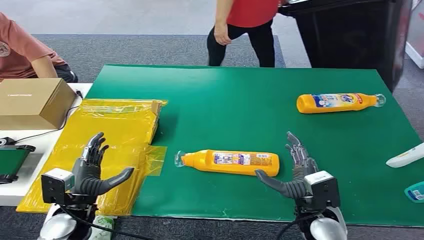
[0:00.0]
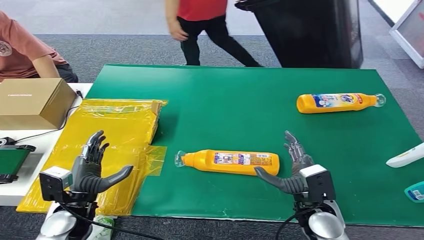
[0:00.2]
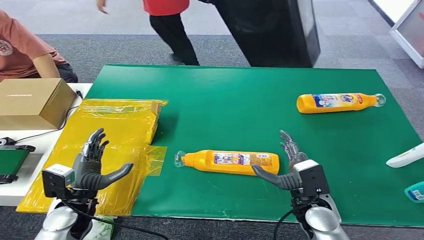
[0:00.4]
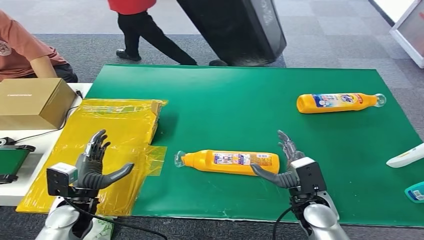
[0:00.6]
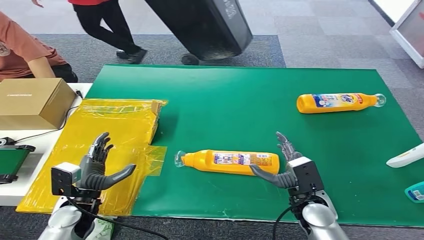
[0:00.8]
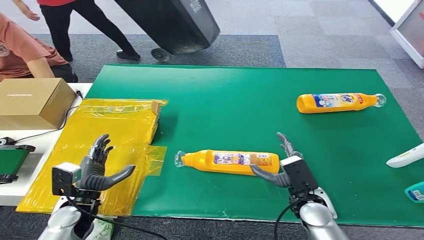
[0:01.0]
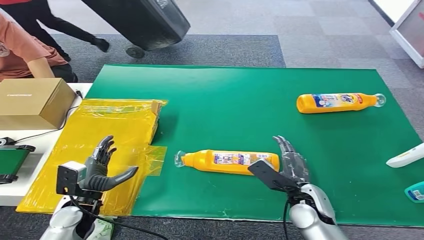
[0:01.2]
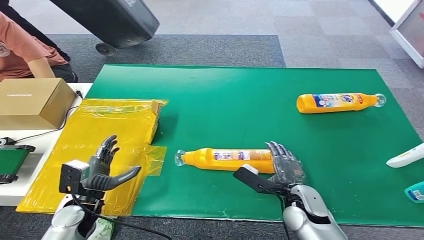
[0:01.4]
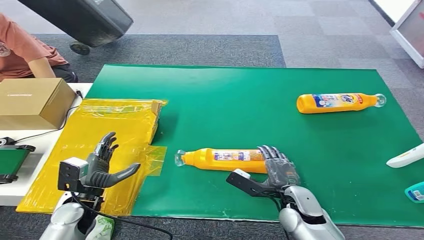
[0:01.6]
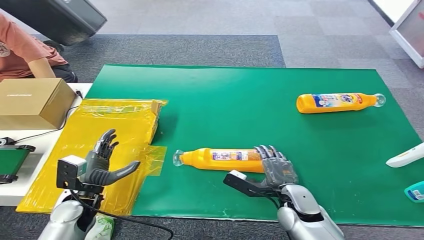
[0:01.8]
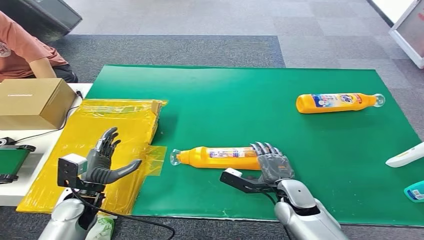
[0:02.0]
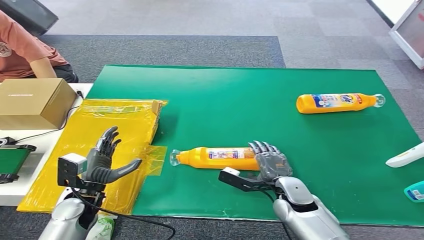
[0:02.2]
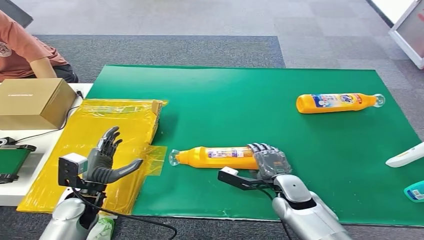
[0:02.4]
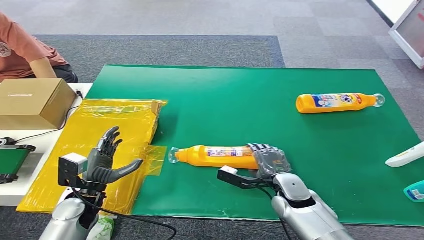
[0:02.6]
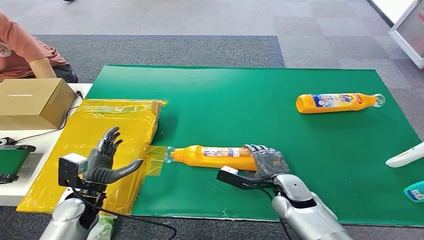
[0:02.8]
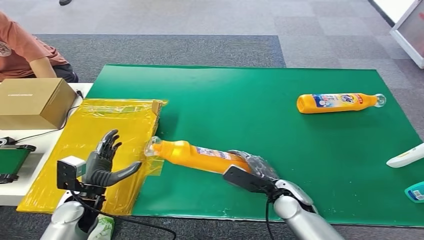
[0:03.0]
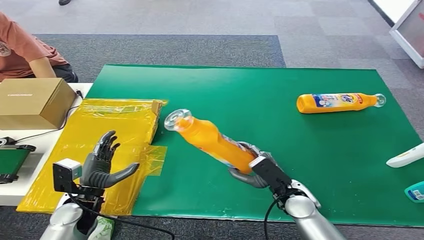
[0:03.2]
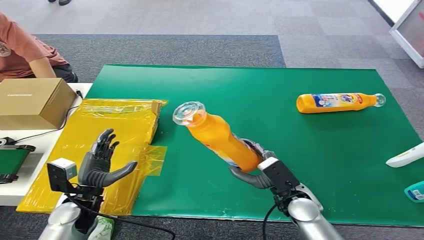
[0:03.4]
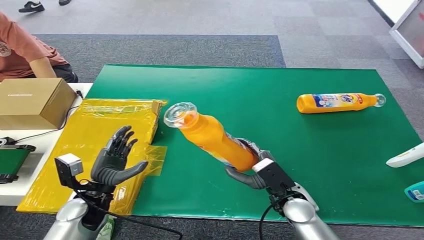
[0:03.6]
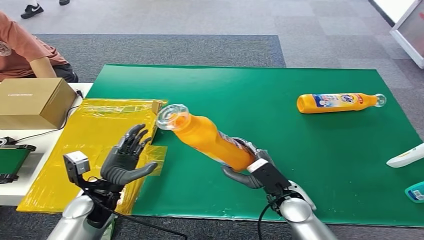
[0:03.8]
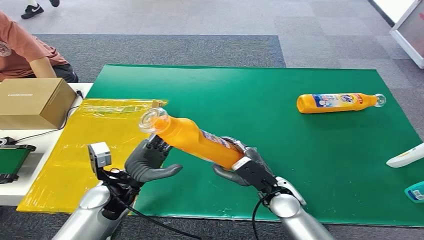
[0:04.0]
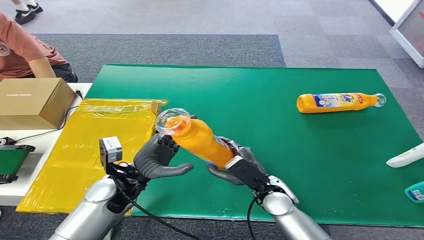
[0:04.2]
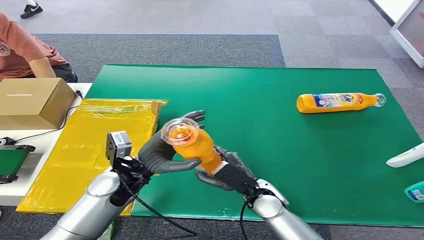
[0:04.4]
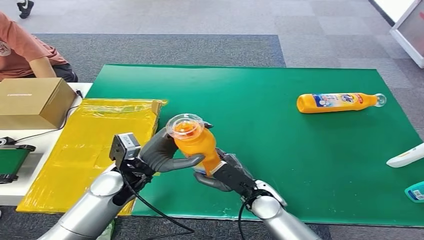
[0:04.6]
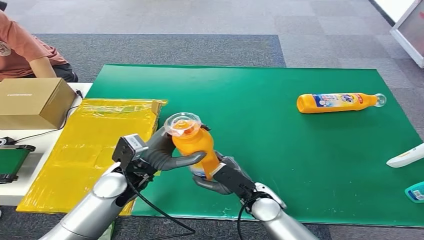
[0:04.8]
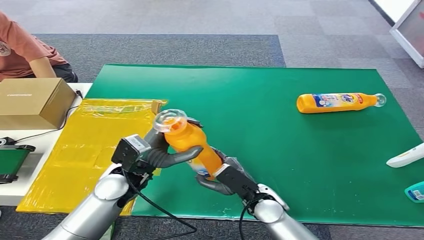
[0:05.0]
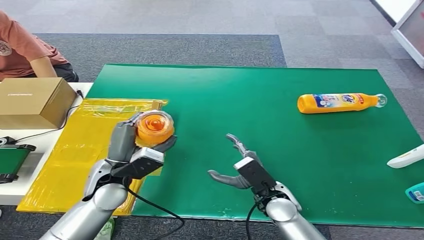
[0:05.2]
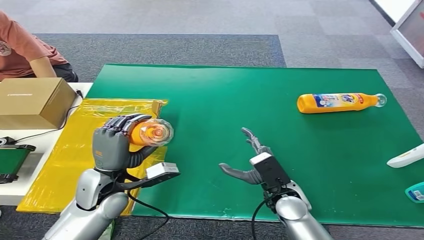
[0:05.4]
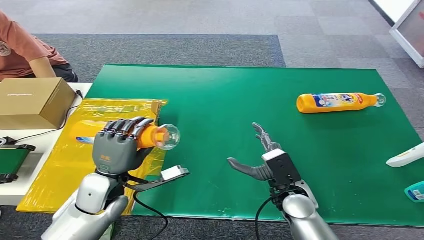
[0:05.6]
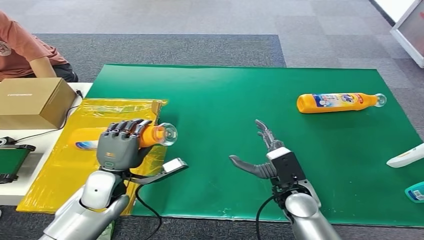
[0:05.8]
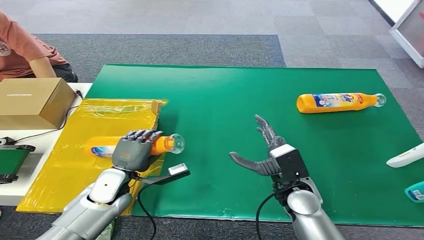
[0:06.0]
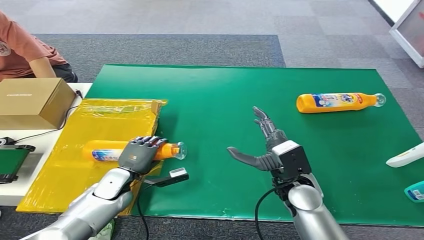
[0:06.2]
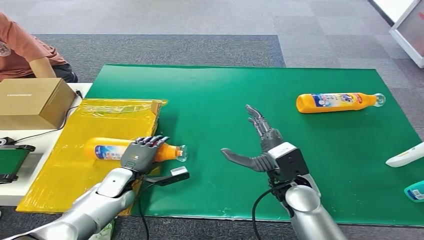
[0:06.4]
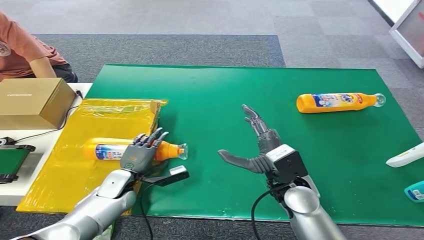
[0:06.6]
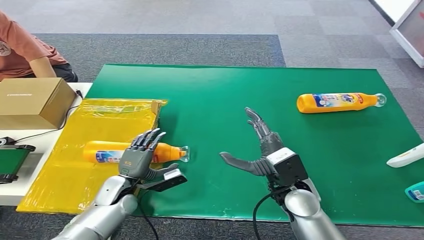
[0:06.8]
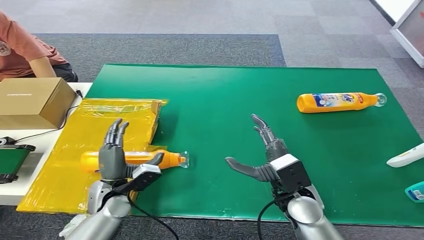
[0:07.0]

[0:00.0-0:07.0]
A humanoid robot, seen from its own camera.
Step, 0.0 to 3.6 s: Pick up the bottle from the table.
Step, 3.8 to 7.0 s: Turn the bottle to the front side.
2.8 to 4.2 s: The left hand travels to the right and upward by roughly 10 cm.
5.6 to 7.0 s: The left hand heads downward, covering some 10 cm.

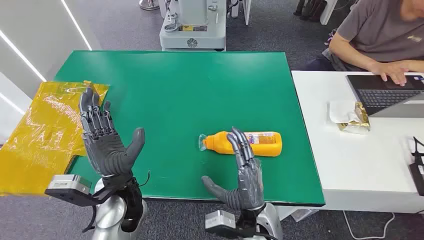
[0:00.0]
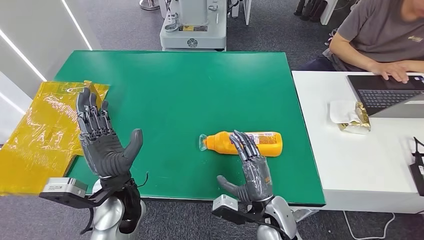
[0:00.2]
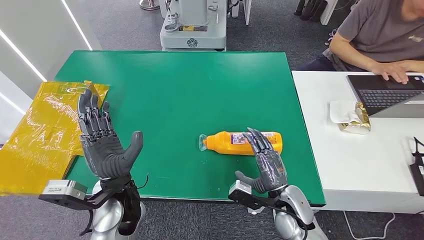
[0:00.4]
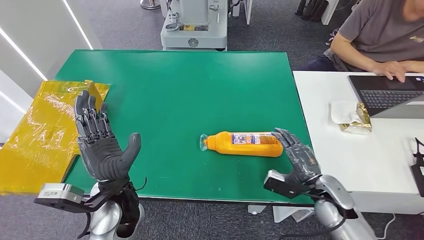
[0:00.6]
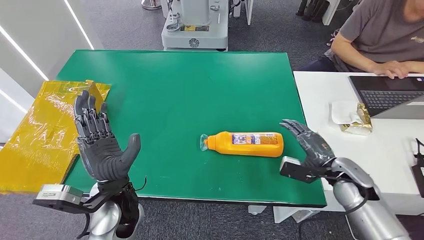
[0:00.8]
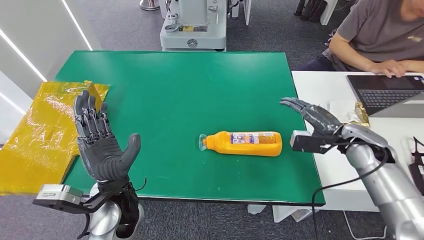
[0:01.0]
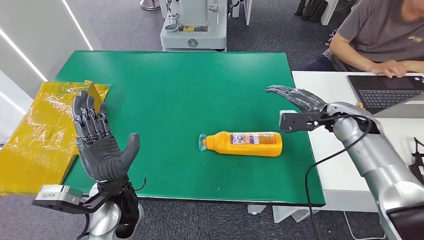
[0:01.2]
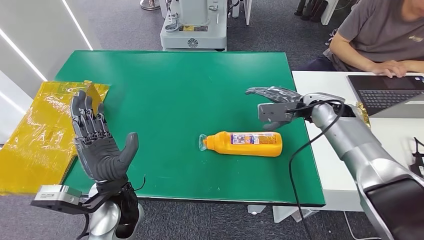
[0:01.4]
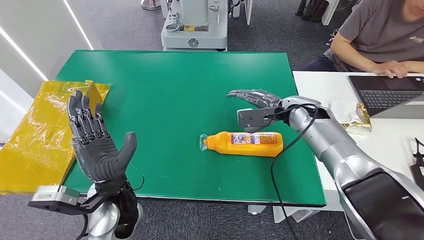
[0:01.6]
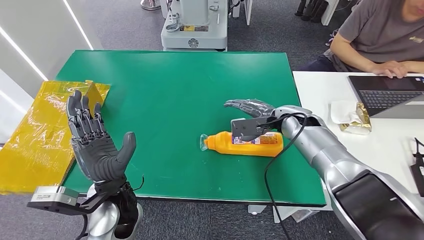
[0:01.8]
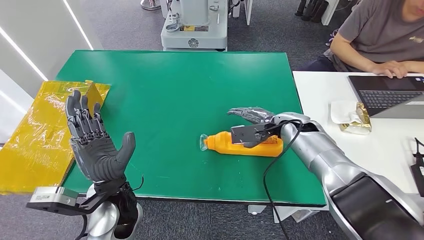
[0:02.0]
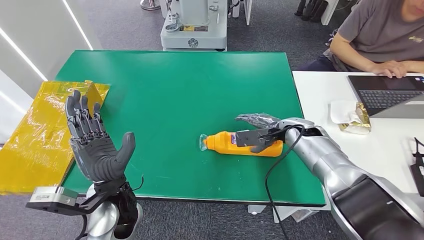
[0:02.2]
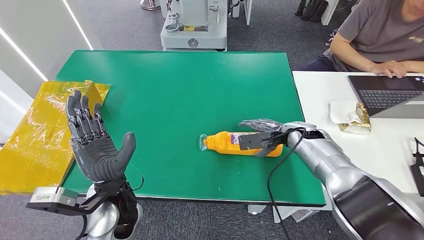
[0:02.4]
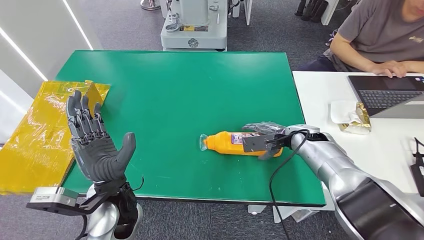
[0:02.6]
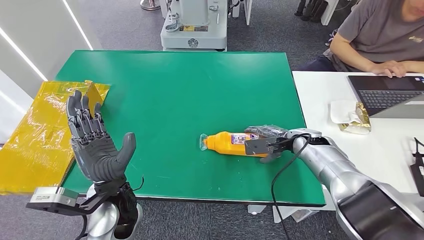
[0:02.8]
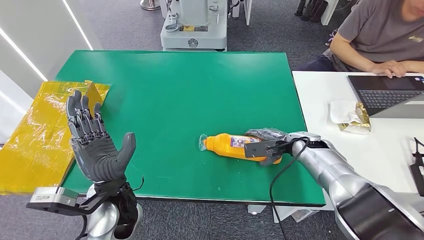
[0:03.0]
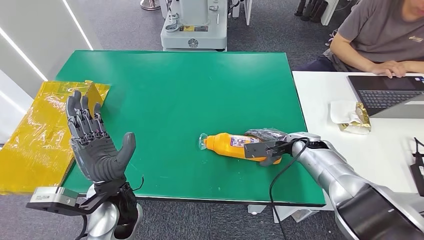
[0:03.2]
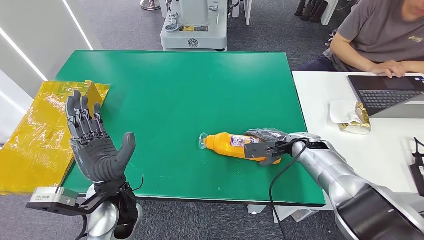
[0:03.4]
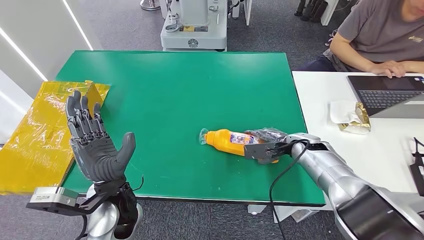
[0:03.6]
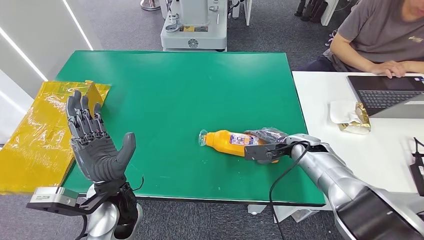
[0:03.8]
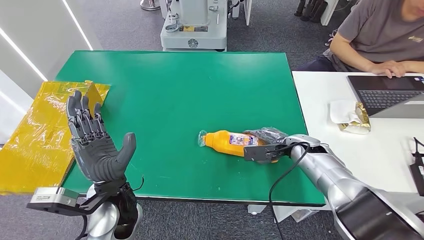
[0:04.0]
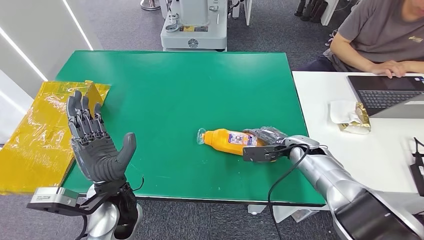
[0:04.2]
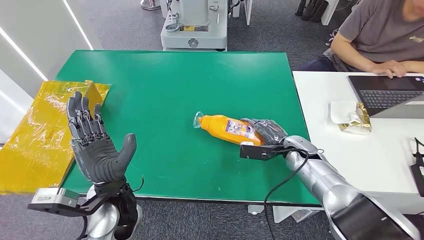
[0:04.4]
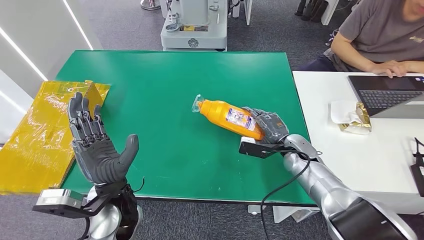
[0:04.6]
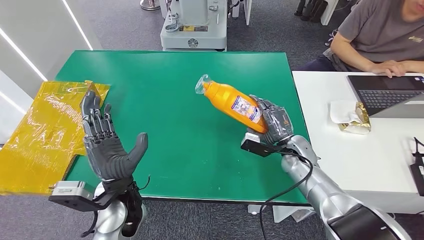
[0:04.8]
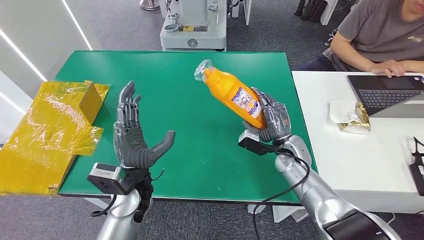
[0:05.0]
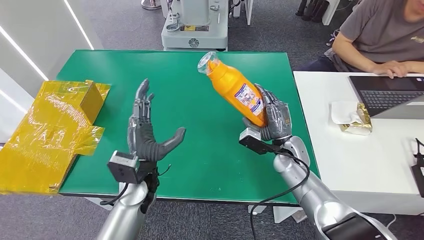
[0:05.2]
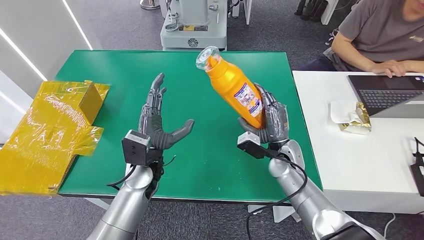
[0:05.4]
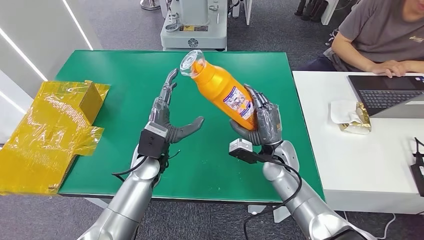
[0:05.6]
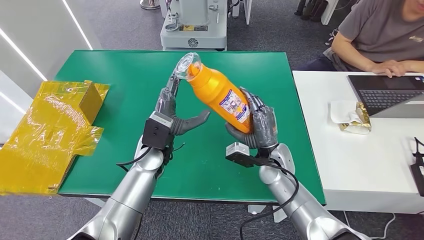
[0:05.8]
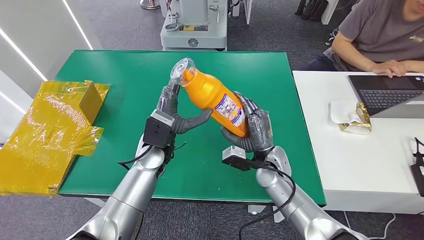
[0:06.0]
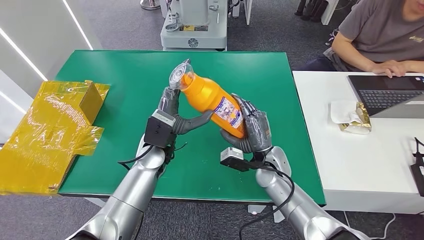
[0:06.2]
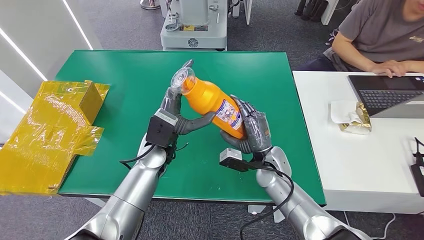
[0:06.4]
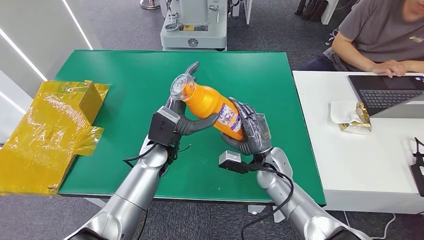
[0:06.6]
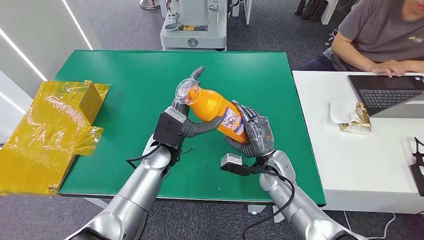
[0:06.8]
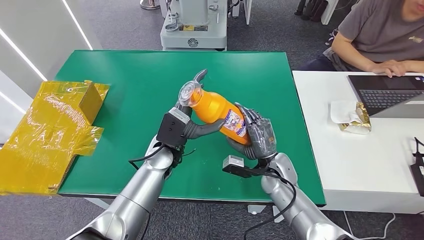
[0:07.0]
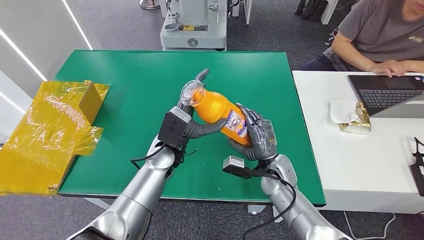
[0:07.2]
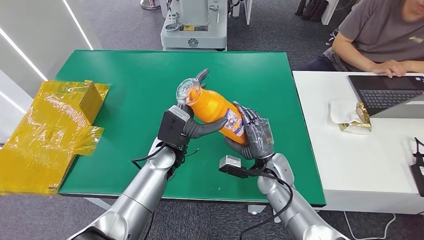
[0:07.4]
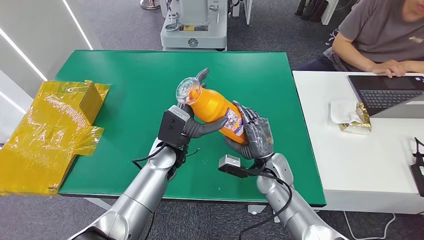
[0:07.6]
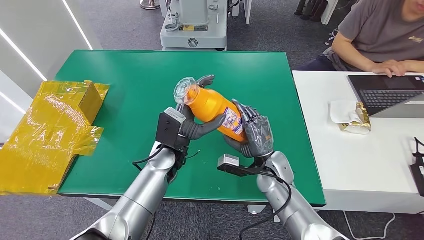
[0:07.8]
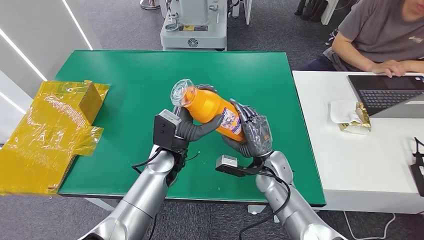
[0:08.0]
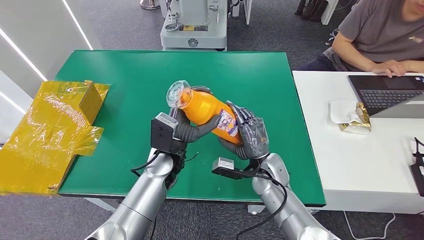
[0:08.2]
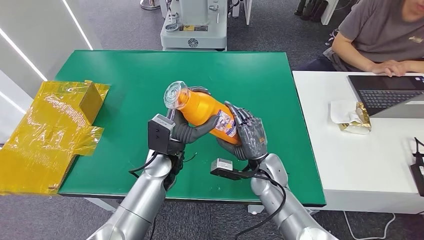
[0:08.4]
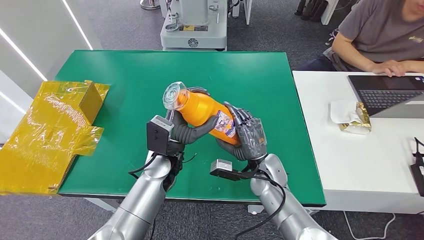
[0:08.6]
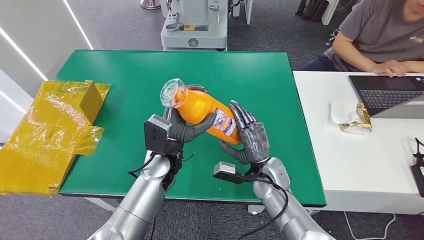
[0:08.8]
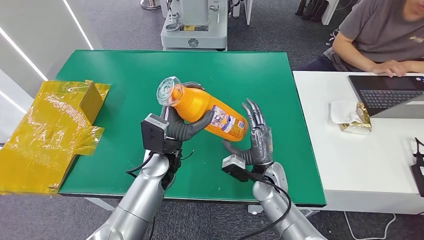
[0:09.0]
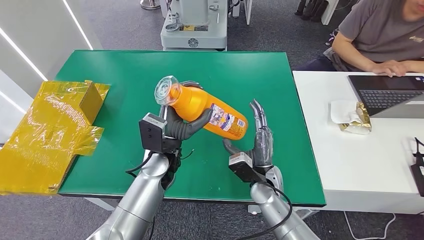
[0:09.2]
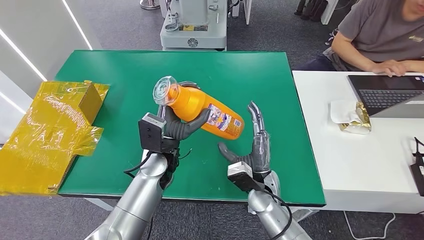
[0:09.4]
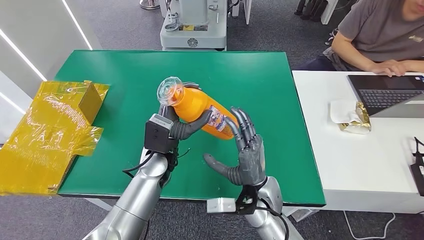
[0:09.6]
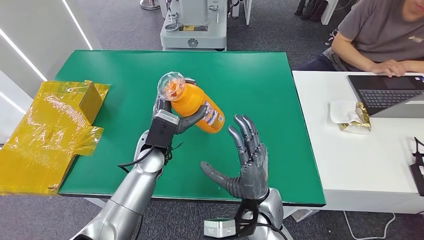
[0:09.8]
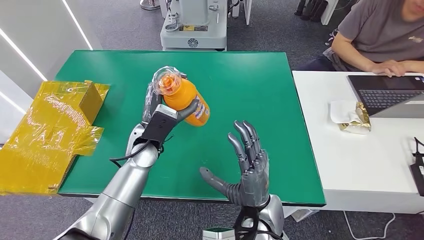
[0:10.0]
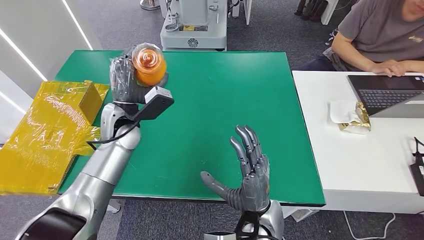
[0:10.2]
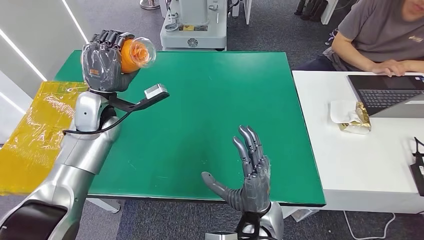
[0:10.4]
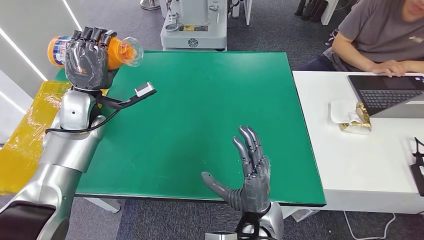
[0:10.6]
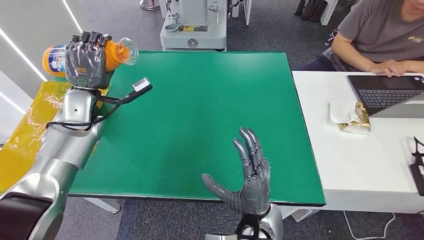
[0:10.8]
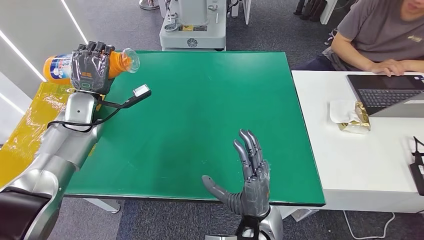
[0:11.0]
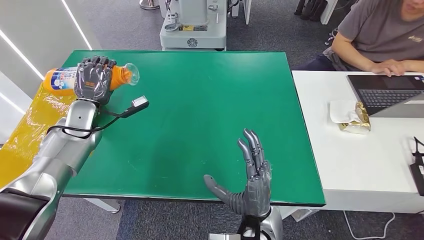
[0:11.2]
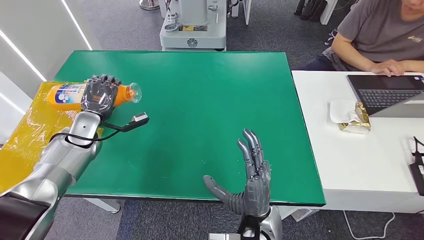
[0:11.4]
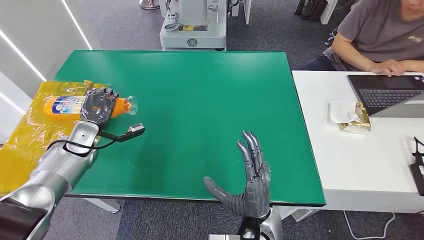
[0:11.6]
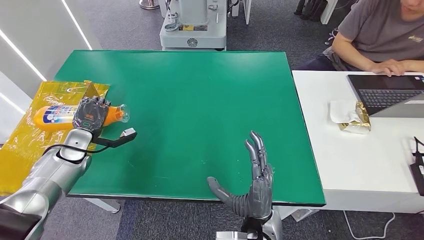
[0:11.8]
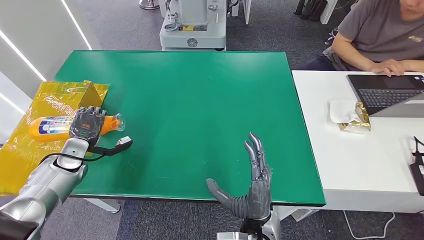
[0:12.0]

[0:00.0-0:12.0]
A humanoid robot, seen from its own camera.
Step, 0.0 to 5.2 s: Pick up the bottle from the table.
1.6 to 3.0 s: The right hand moves downward, roughly 10 cm.
6.0 to 9.0 s: The hands stay close to where they were, moving slightly.
10.4 to 12.0 s: The left hand travels to the left and downward by roughly 20 cm.
